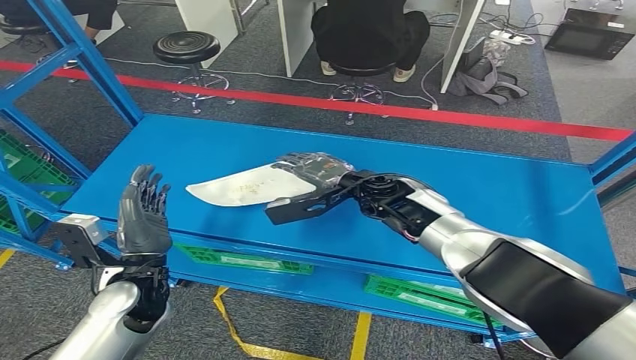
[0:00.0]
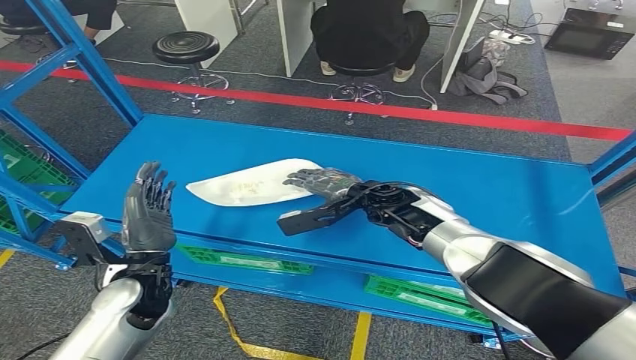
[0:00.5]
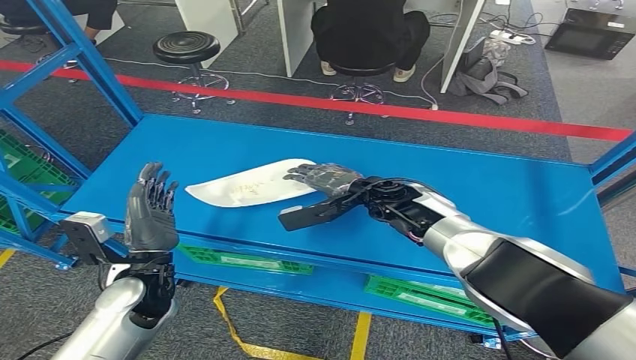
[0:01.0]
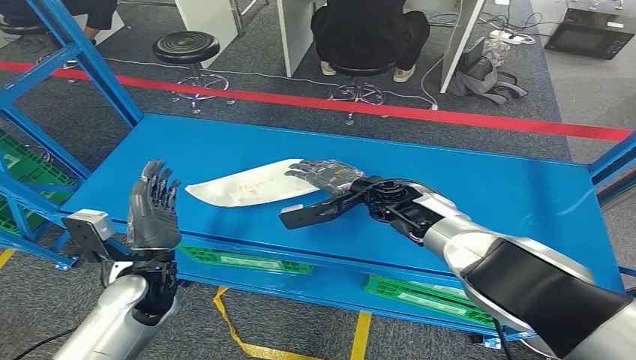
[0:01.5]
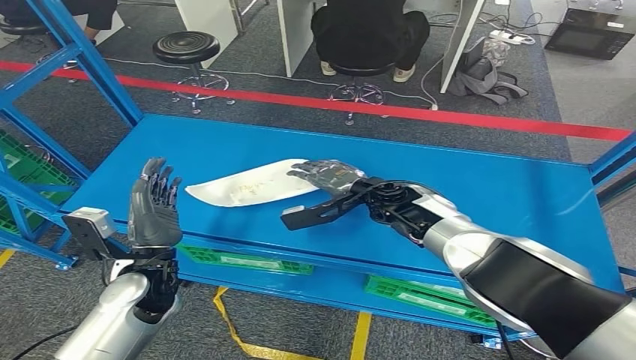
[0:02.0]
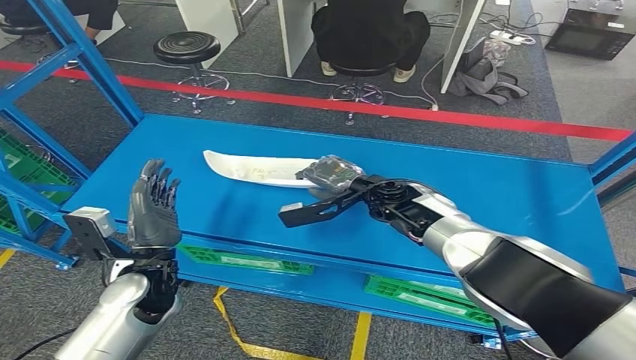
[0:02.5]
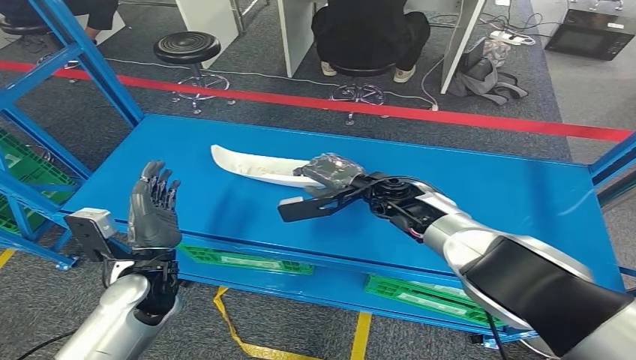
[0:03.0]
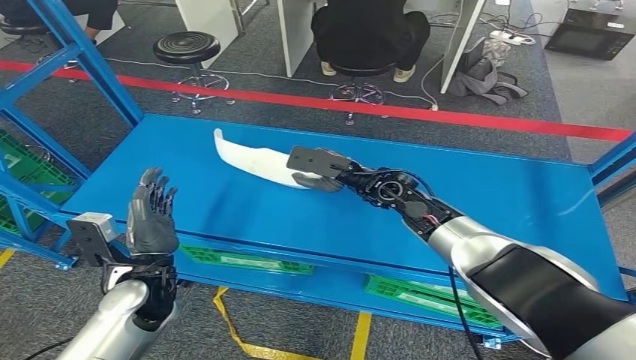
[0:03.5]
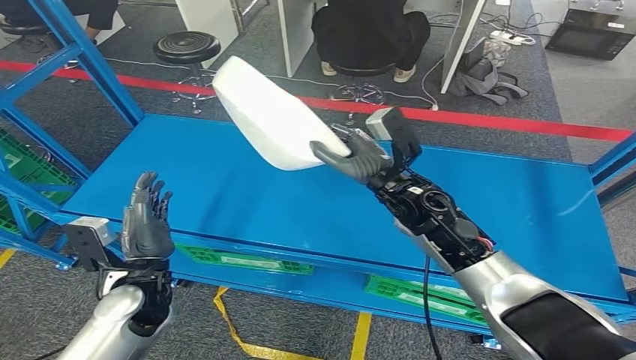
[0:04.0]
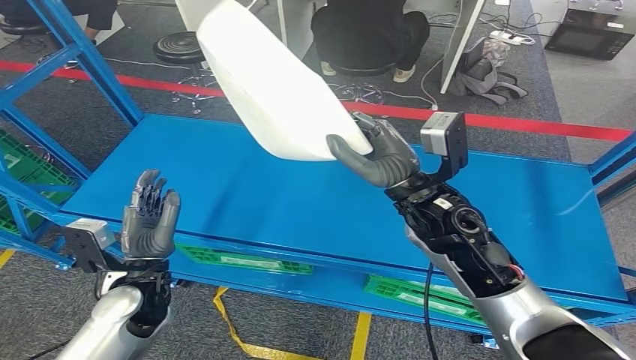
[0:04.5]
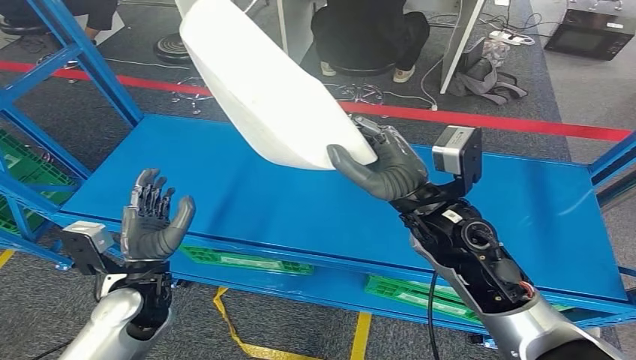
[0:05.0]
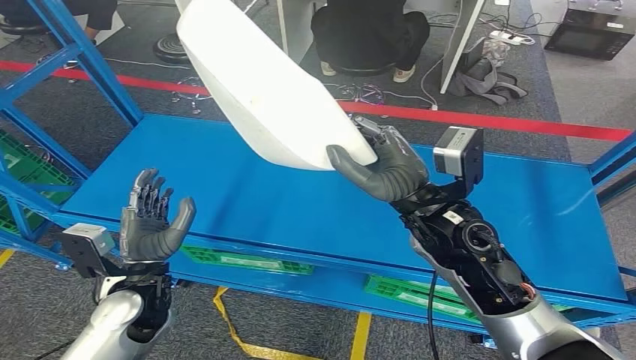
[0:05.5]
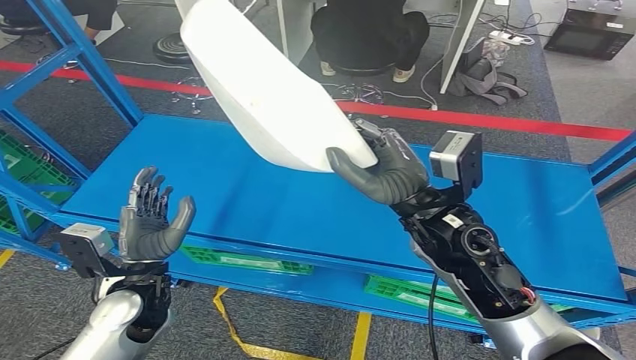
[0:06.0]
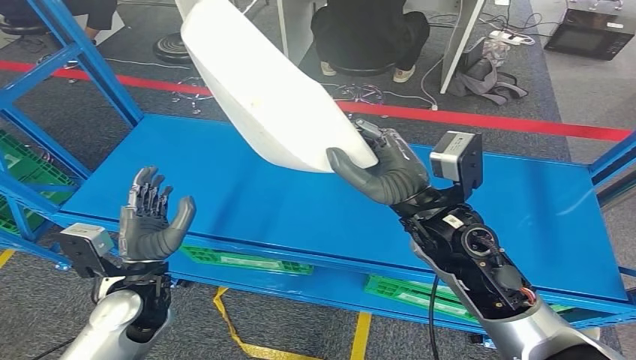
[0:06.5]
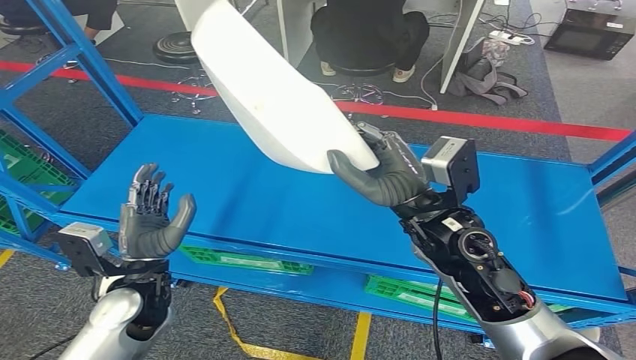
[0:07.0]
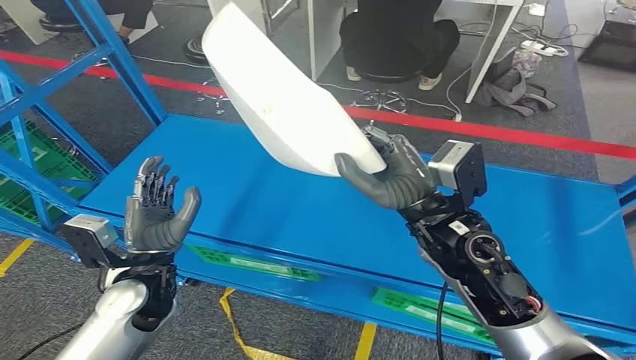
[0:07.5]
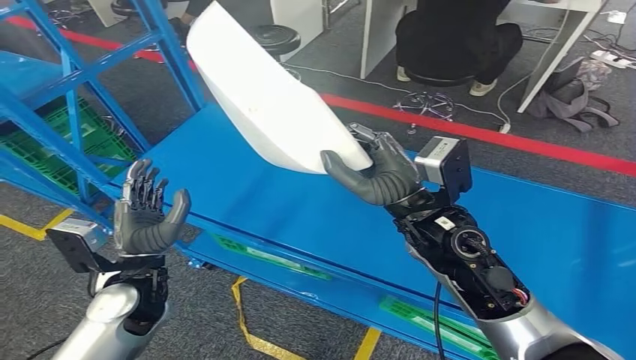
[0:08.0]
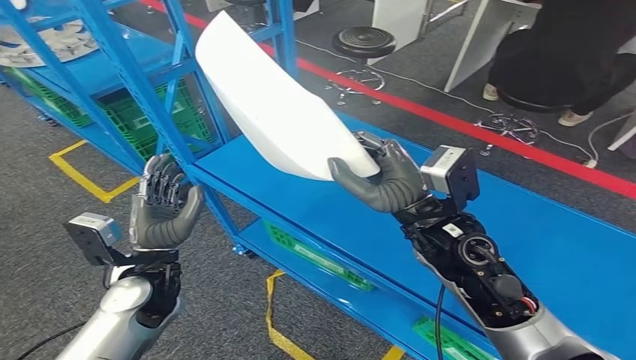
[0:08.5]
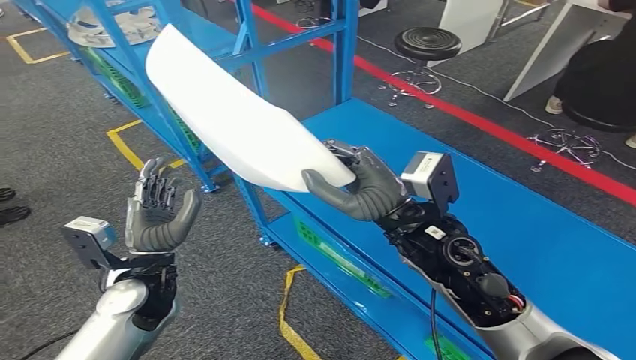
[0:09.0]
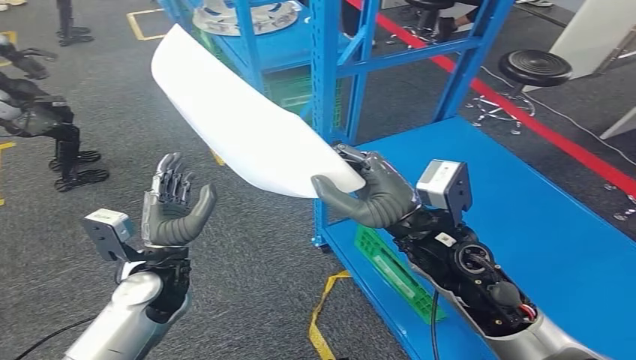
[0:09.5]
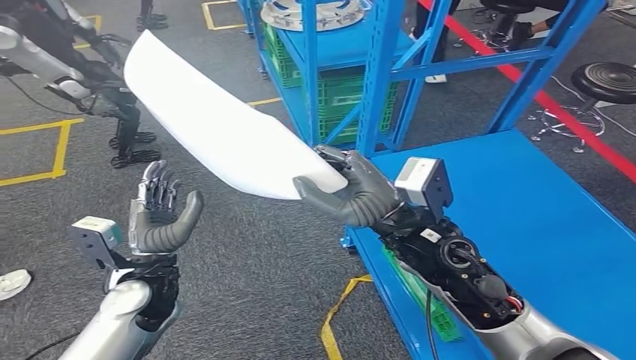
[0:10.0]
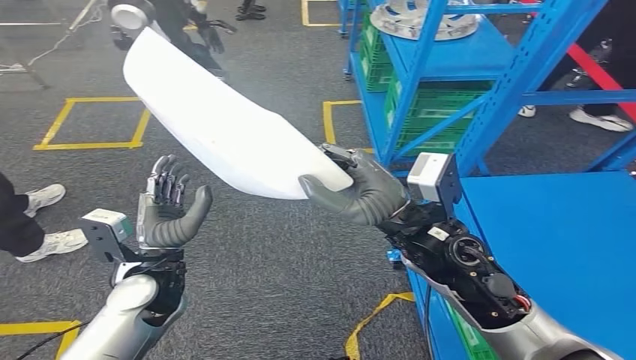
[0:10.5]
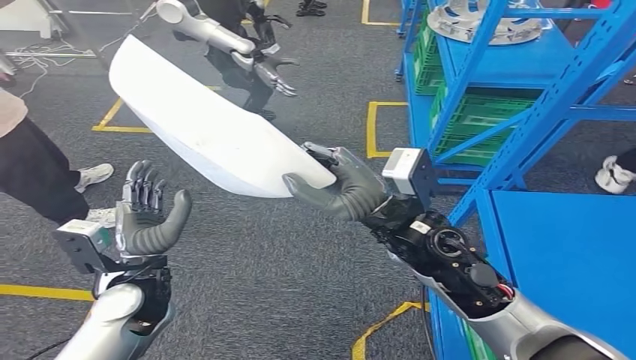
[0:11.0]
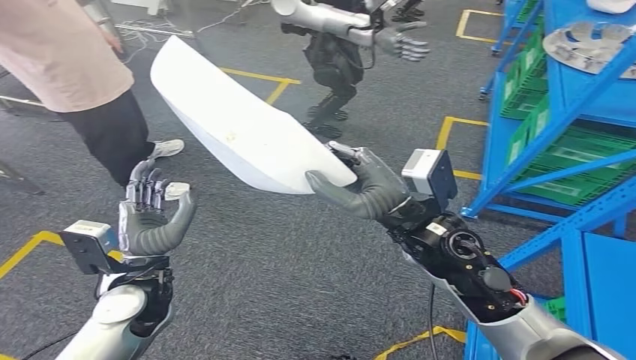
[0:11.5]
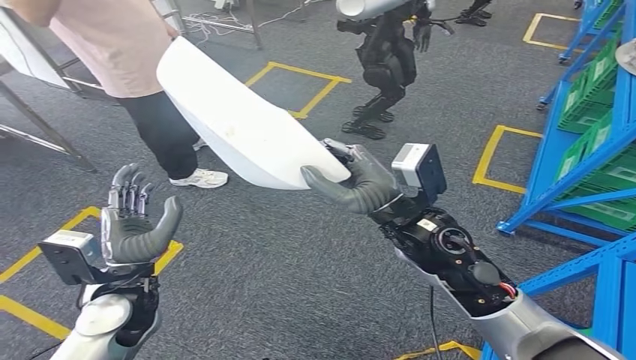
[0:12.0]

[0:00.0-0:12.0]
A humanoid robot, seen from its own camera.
Step, 0:00.0 to 0:05.0: Pick up the small parts from the shelf.
0:00.0 to 0:02.0: The hands move only a little.
0:04.0 to 0:06.0: The right hand is displaced backward and upward by approximately 10 cm.

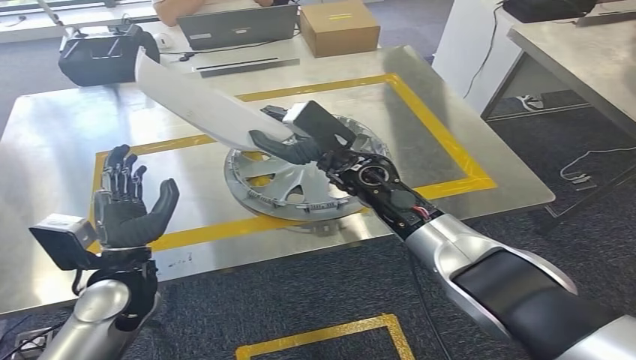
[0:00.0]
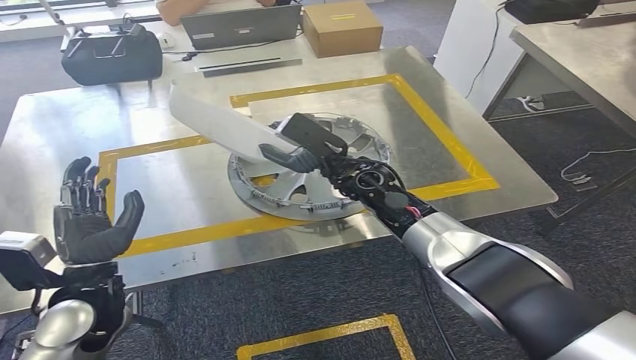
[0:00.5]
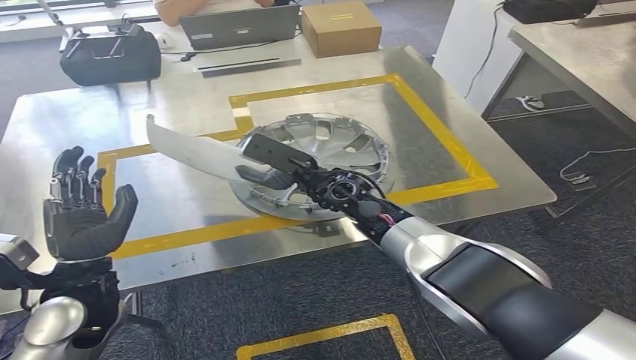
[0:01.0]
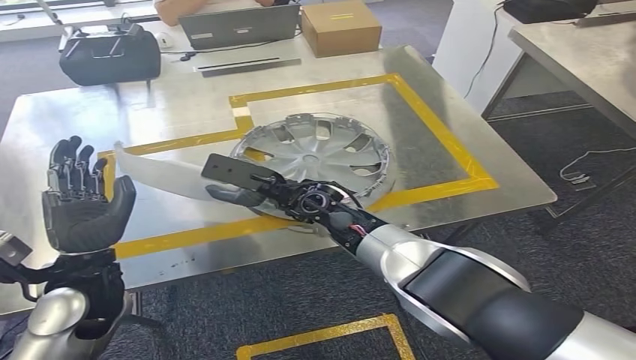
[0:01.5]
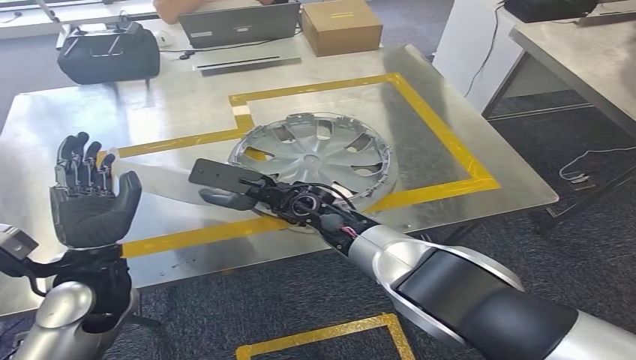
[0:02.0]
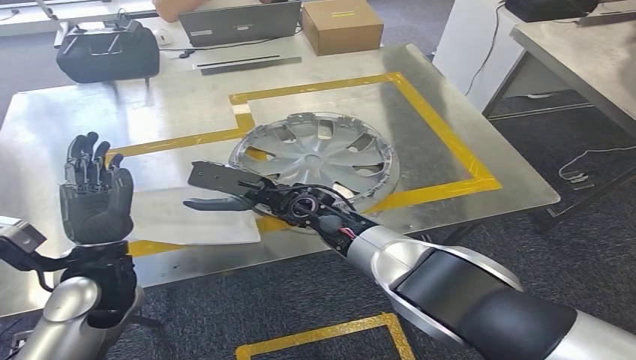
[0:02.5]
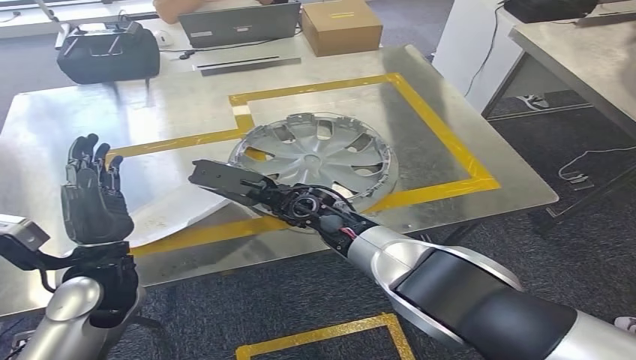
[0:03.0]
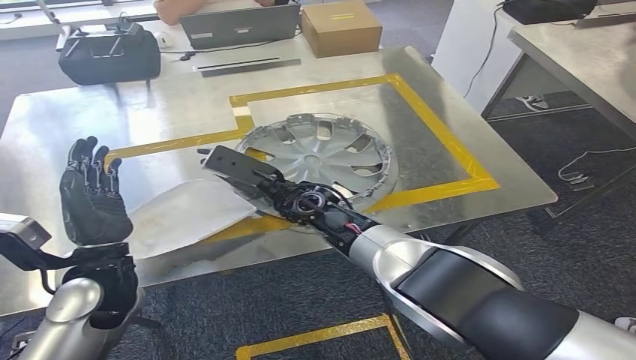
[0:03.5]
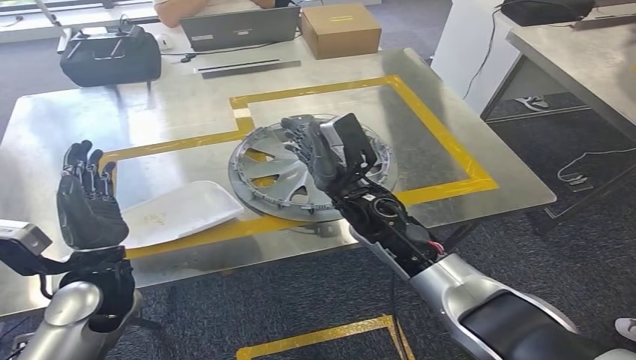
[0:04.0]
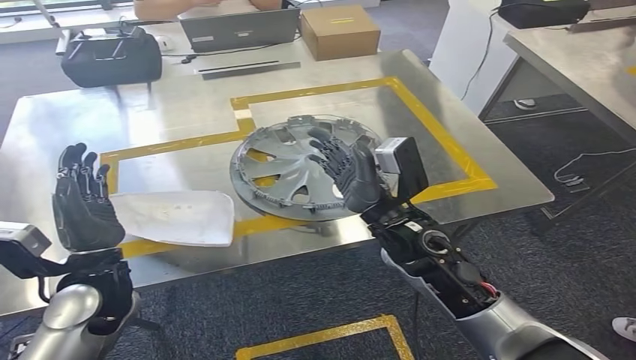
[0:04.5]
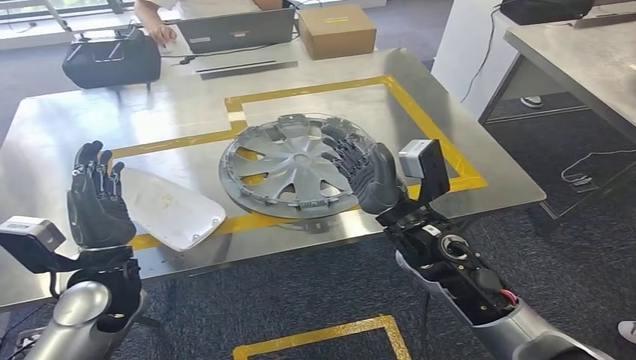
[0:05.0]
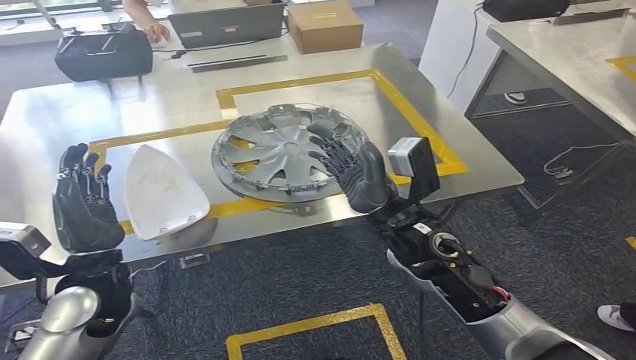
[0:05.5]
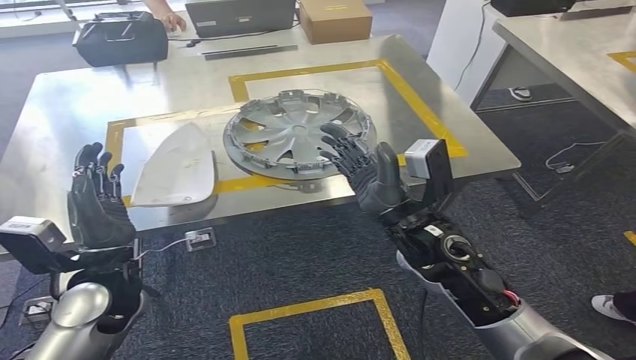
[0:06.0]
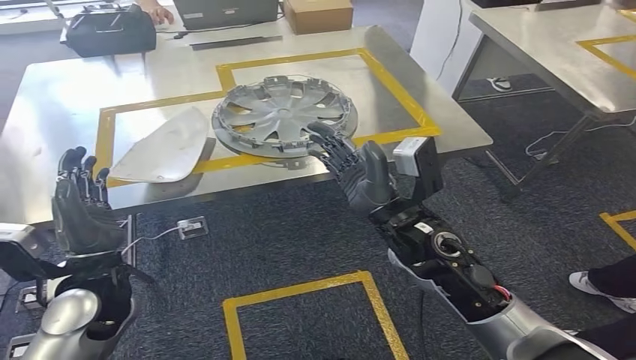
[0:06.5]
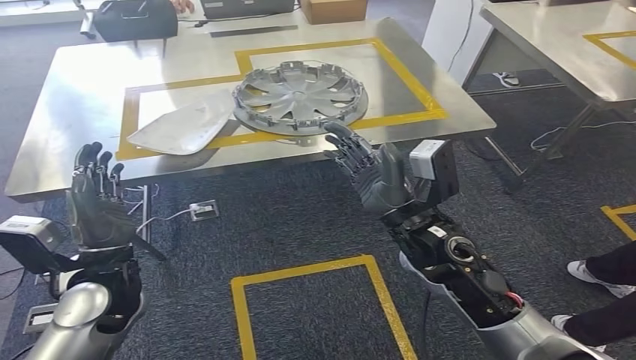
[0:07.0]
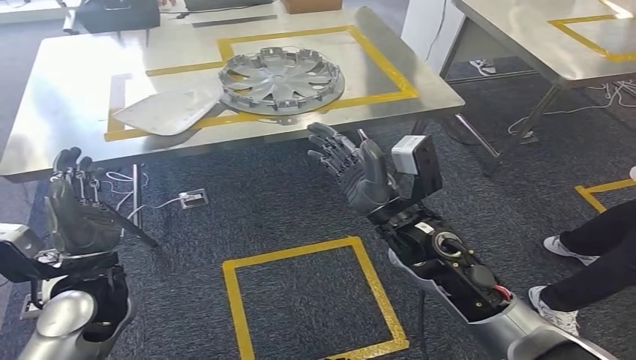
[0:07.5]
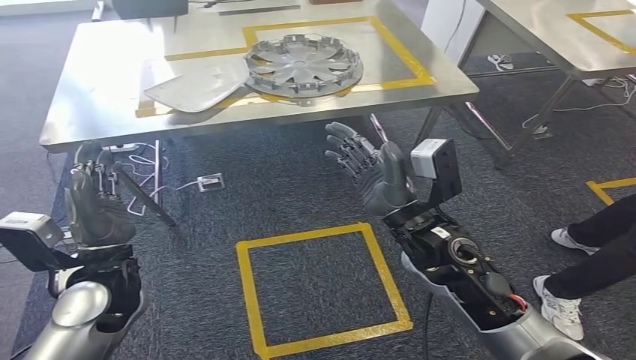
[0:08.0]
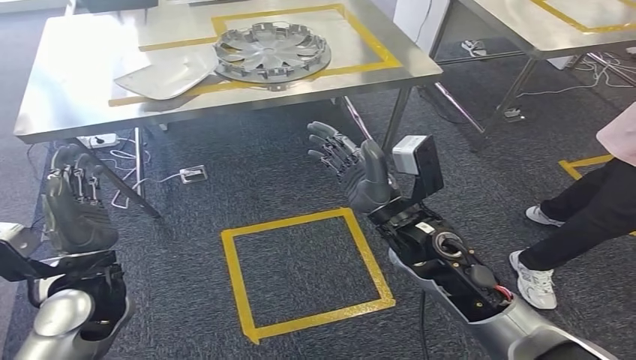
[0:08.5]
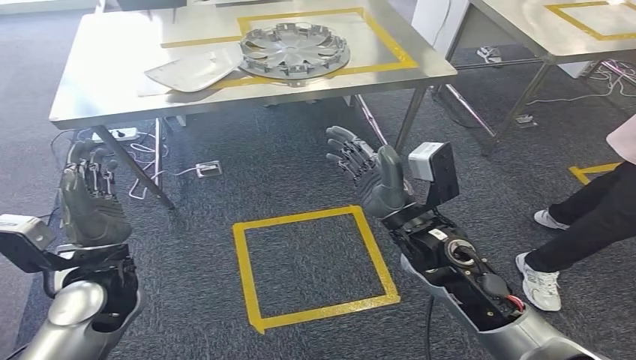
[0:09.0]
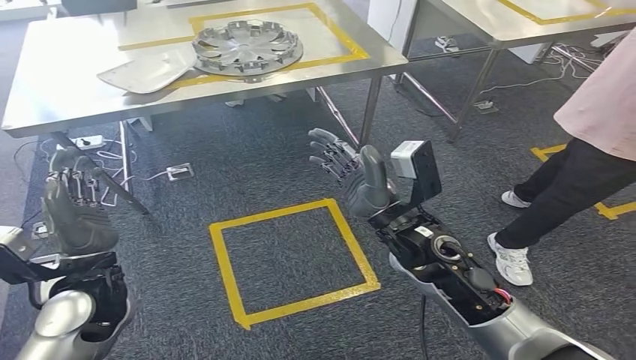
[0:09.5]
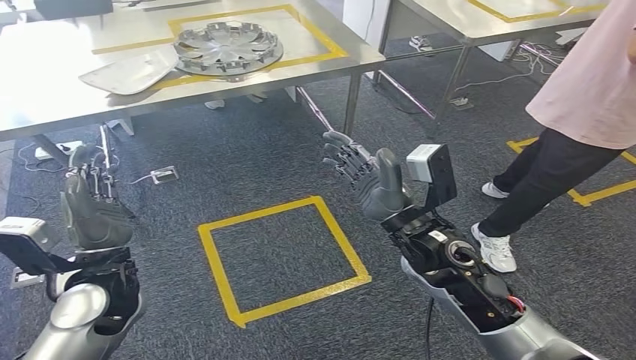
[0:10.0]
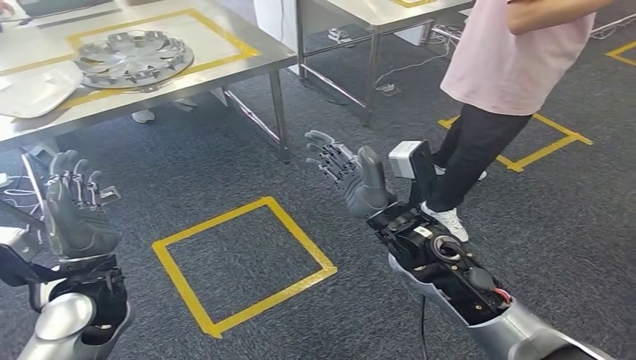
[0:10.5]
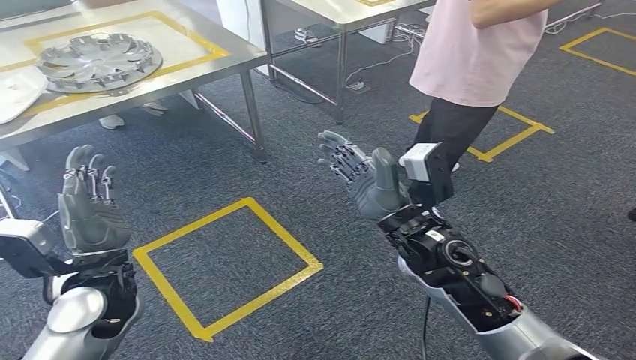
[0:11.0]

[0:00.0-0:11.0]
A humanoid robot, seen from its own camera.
Step, 0:00.5 to 0:05.0: Insert the small parts into the corresponding holes on the workbench.
0:02.0 to 0:03.5: There are only small adjustments of the hands.
